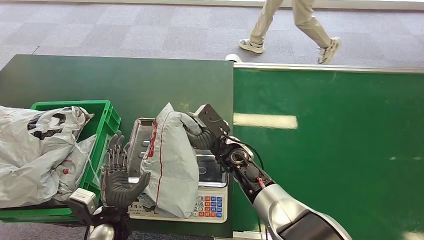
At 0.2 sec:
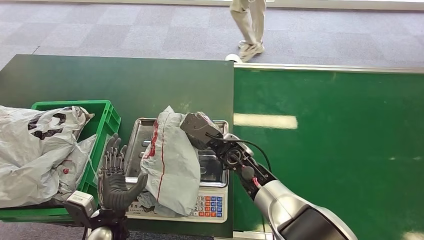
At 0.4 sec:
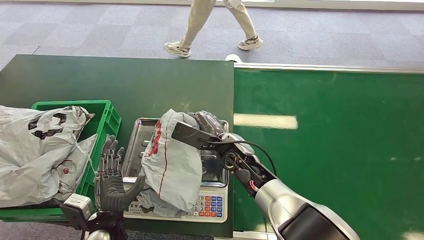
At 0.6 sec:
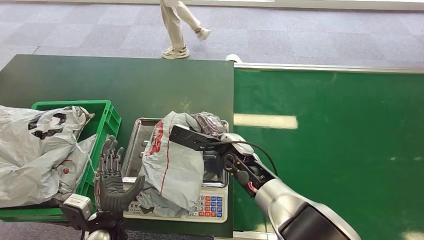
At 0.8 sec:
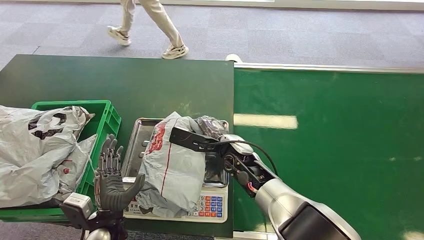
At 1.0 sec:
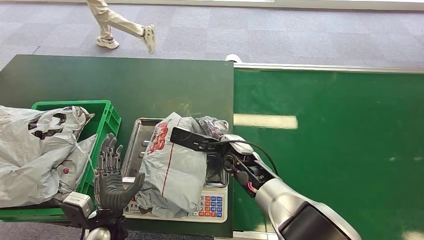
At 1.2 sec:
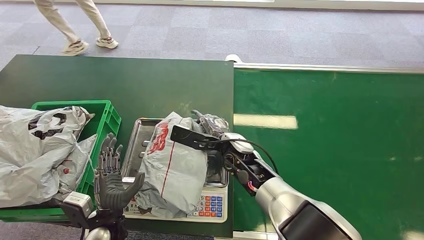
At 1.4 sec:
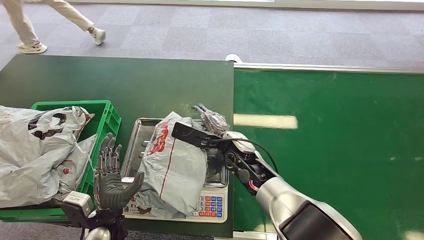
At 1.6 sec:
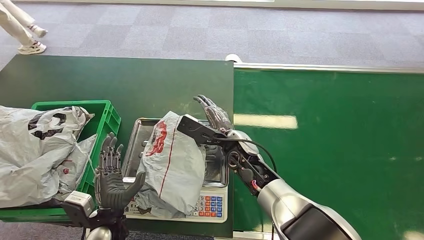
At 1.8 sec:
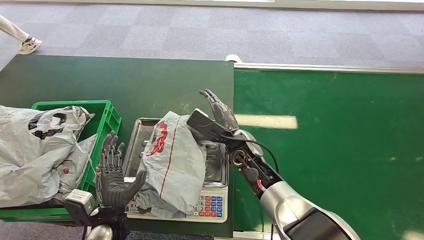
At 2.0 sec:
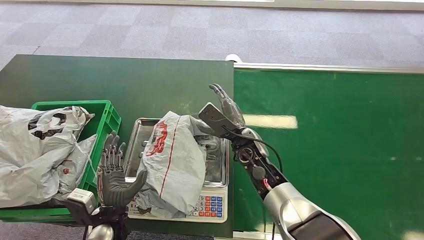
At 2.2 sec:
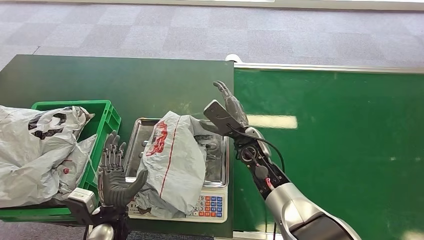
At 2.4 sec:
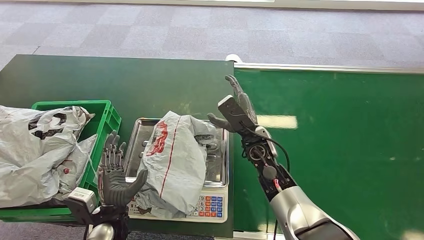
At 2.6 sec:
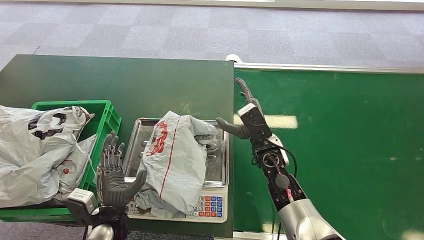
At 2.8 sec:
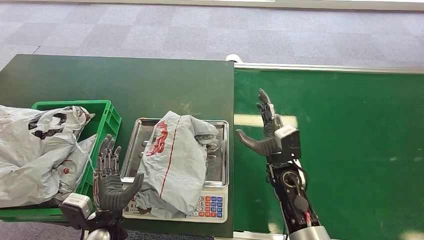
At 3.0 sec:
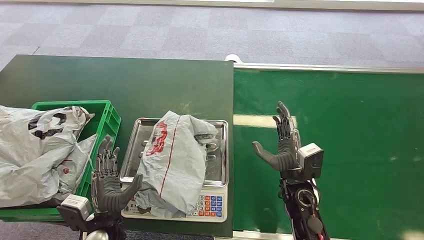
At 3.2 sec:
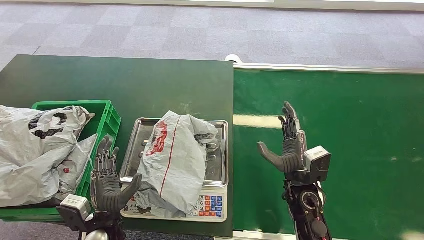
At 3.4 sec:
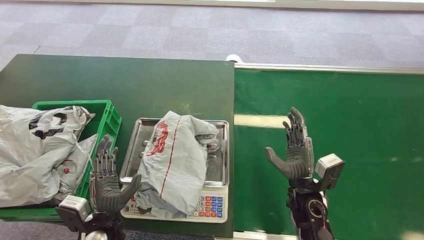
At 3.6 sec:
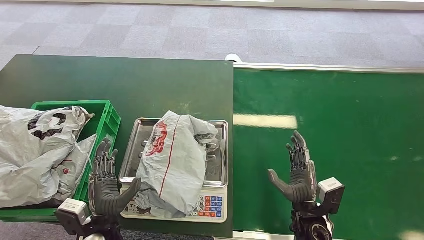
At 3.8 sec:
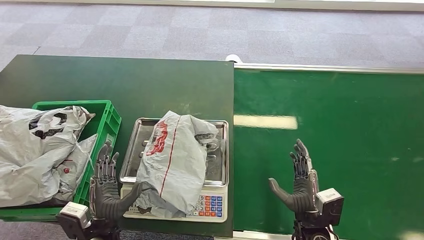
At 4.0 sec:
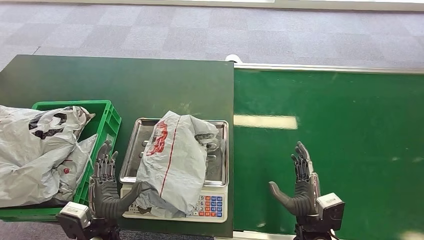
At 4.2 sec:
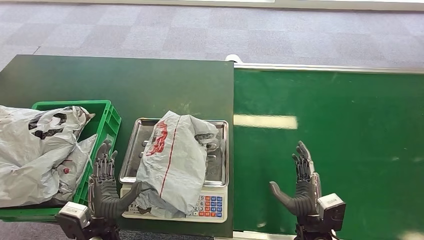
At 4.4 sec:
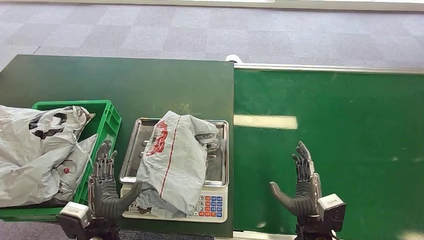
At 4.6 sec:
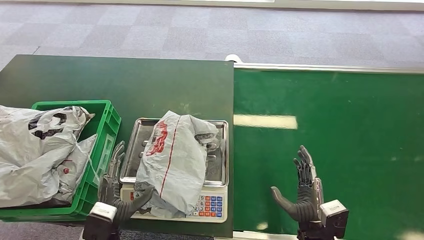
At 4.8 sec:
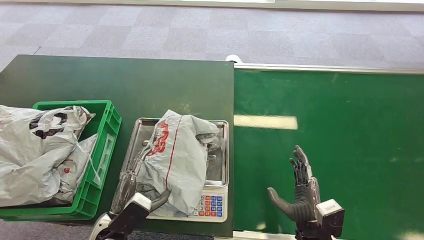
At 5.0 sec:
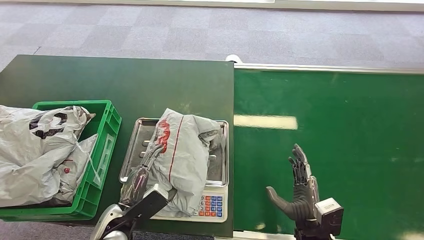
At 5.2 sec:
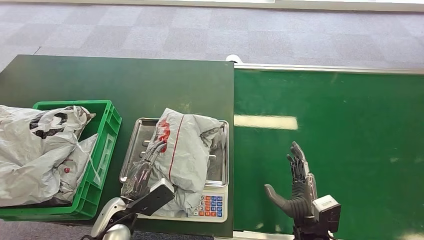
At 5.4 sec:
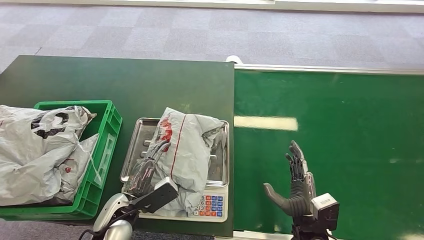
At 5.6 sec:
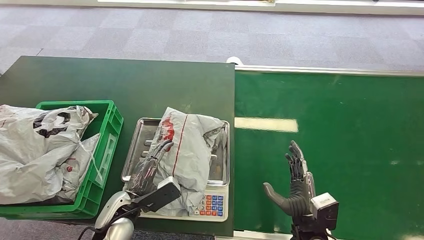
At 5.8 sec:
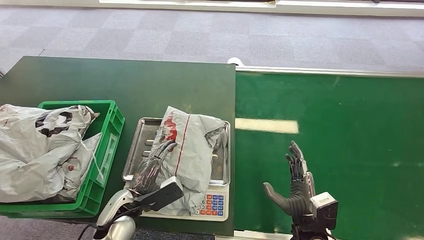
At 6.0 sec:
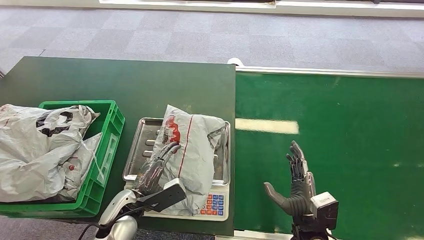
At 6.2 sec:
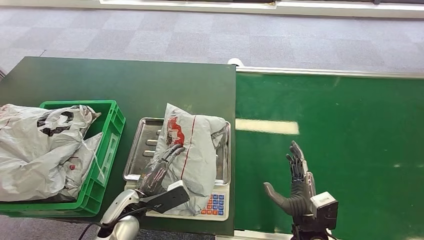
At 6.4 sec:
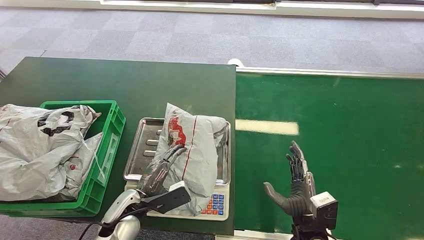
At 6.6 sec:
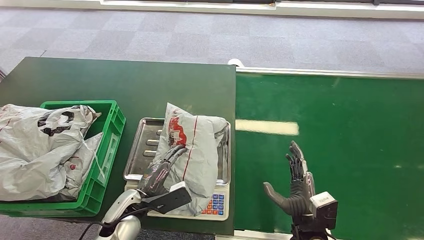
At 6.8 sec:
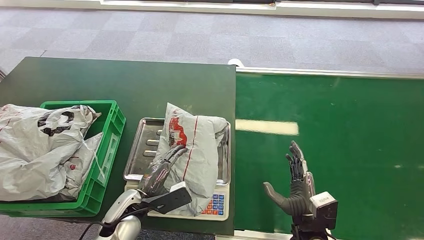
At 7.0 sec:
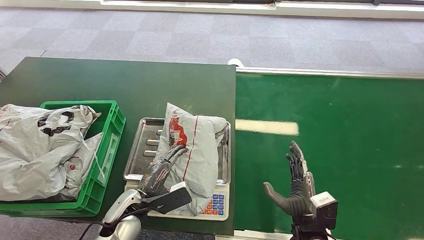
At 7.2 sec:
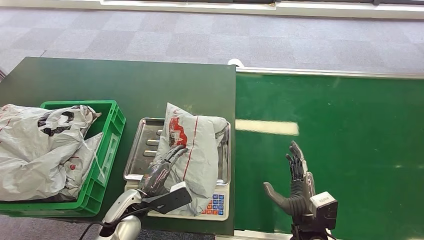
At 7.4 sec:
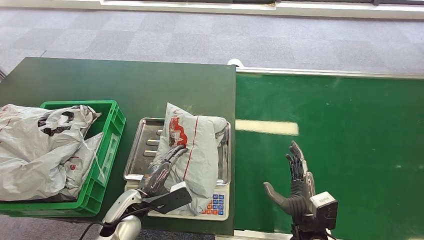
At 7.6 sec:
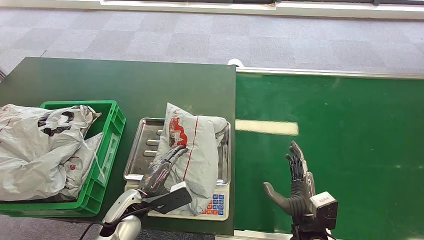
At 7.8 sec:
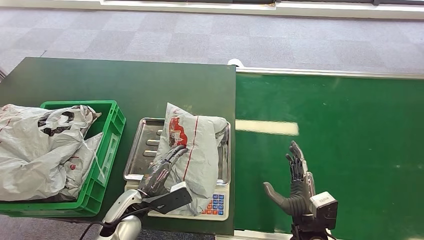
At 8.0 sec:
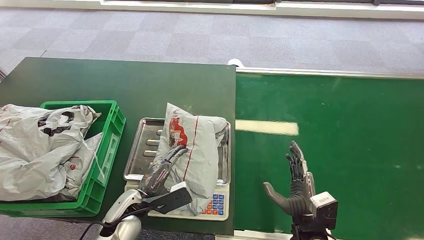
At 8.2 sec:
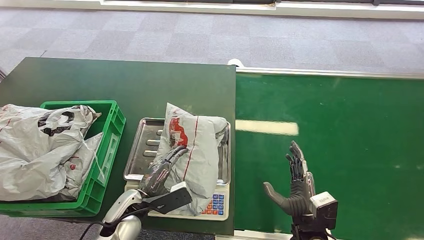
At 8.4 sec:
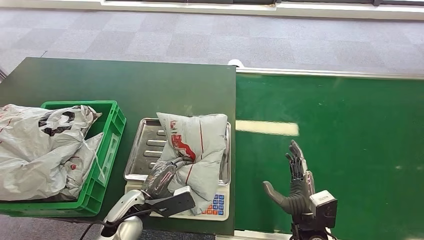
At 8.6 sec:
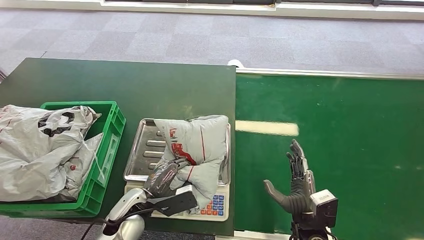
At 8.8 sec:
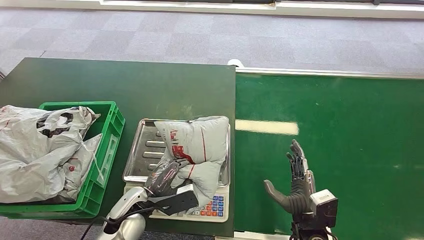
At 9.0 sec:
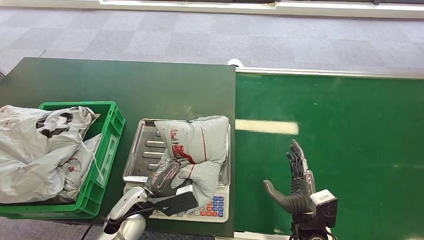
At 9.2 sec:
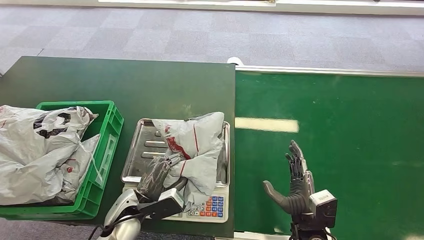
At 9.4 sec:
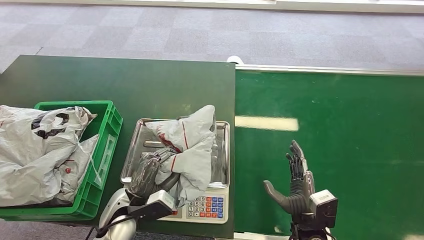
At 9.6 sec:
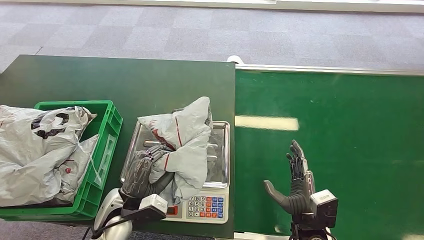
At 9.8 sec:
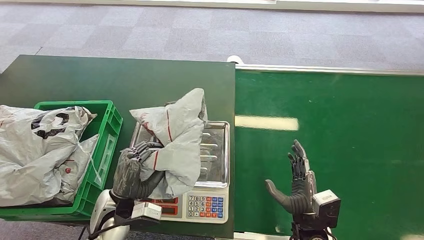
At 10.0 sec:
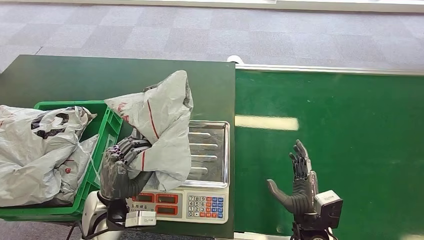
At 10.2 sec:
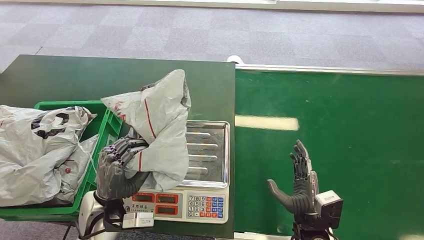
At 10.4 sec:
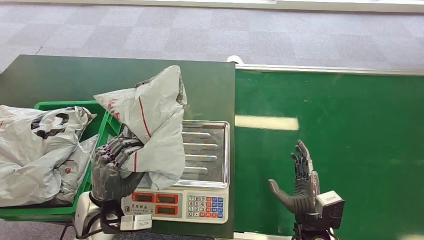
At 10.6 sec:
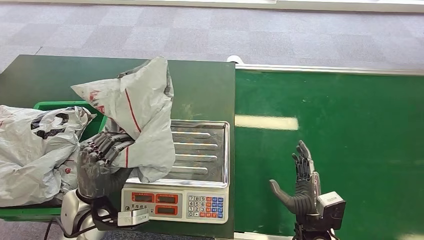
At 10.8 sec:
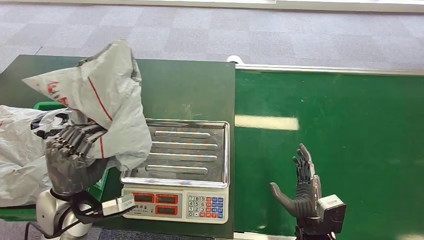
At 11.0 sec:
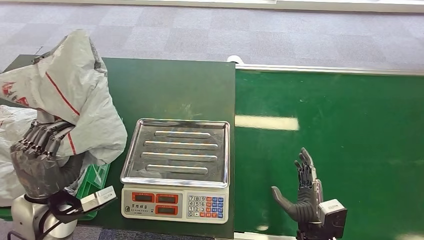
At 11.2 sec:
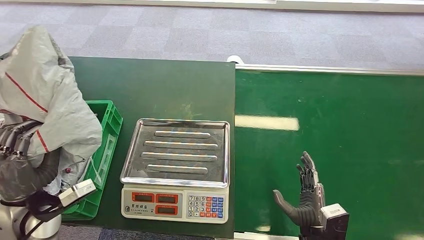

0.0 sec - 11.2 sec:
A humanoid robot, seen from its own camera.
Step, 2.0 sec - 10.0 sec: Pick up the package from the inbound machine.
1.6 sec - 3.2 sec: The right hand moves to the right and backward, roughly 15 cm.
3.2 sec - 4.8 sec: The right hand moves backward, about 10 cm.
6.4 sec - 8.0 sec: Neither hand changes place.

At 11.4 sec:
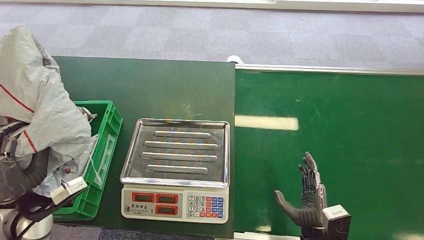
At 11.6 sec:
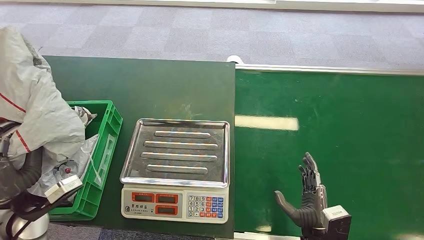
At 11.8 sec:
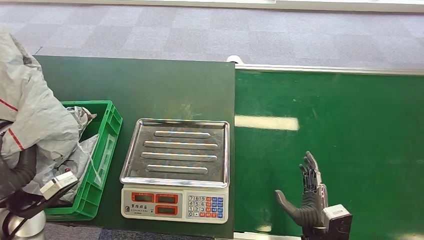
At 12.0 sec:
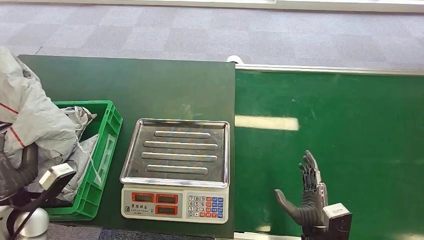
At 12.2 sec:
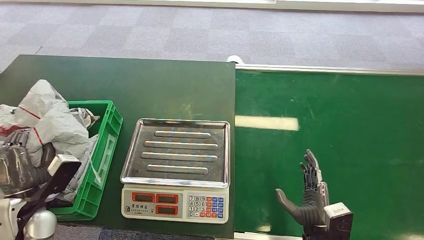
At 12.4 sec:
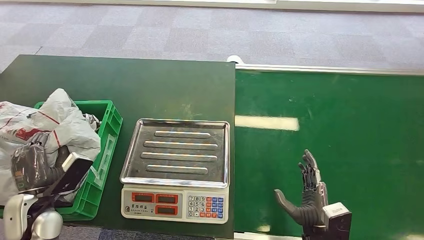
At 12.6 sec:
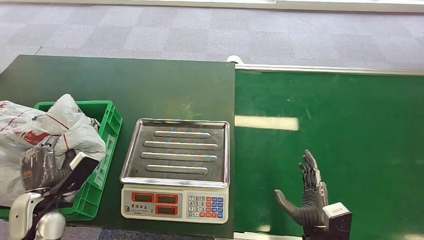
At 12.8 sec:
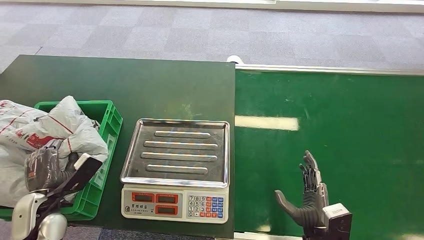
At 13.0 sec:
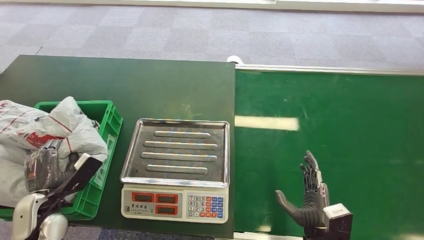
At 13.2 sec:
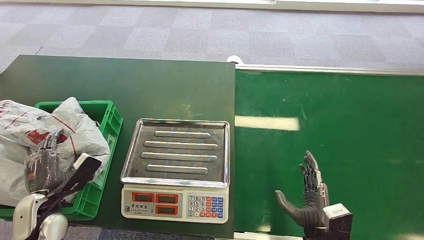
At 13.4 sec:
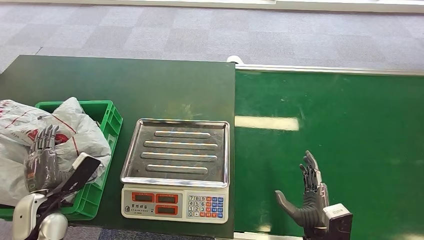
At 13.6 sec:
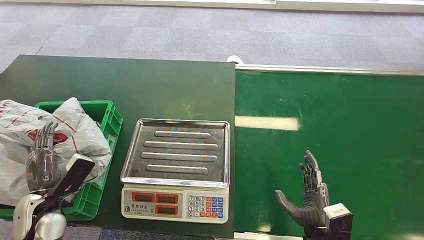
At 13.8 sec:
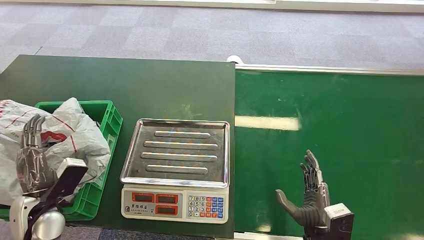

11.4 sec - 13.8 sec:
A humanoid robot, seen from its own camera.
Step, 11.4 sec - 13.8 sec: Place the package into the parcel locker.
11.4 sec - 12.6 sec: The left hand goes some 5 cm downward.
12.6 sec - 13.8 sec: The hands make only small movements.
